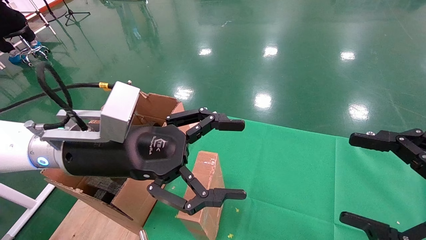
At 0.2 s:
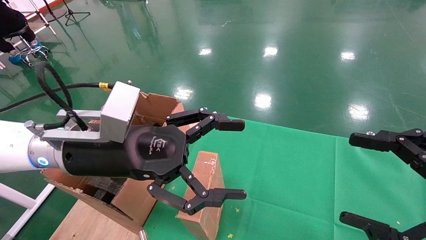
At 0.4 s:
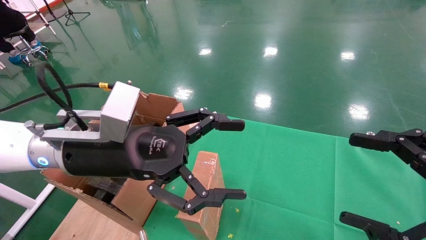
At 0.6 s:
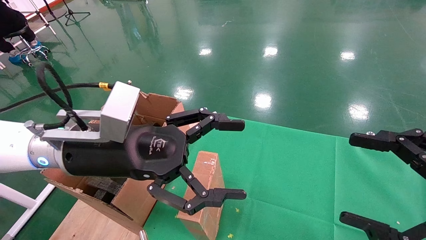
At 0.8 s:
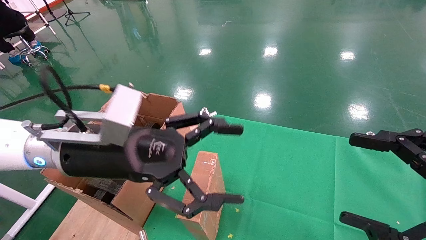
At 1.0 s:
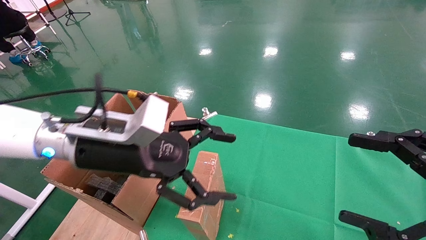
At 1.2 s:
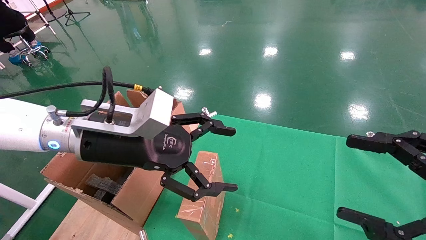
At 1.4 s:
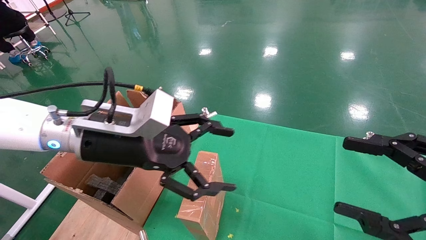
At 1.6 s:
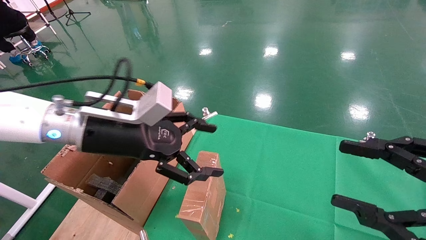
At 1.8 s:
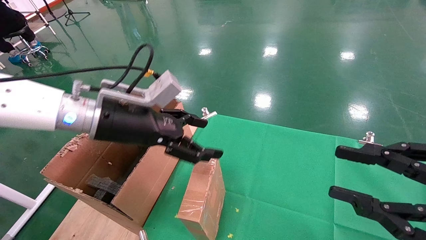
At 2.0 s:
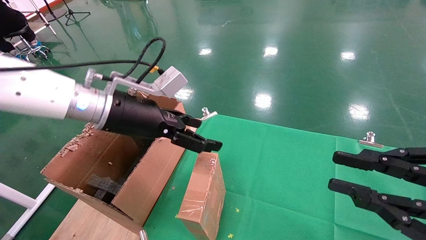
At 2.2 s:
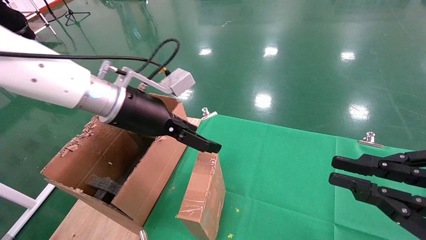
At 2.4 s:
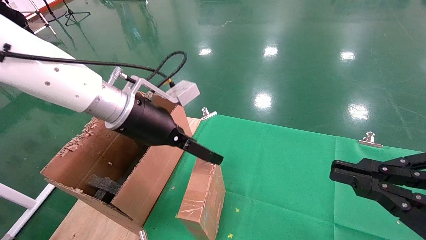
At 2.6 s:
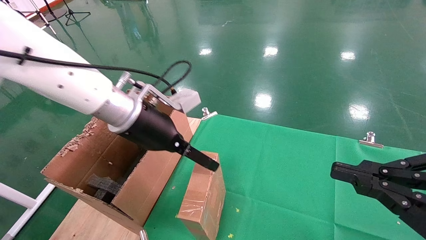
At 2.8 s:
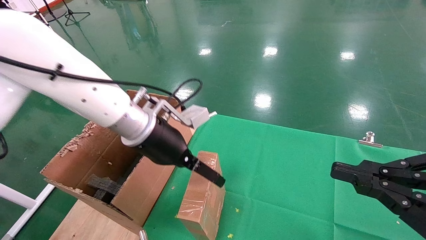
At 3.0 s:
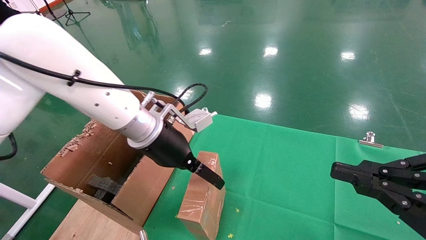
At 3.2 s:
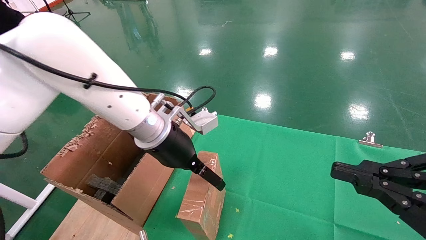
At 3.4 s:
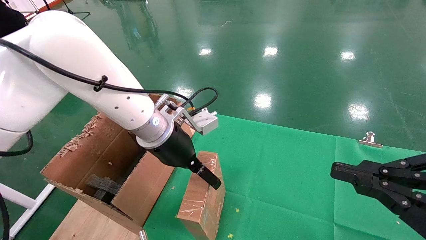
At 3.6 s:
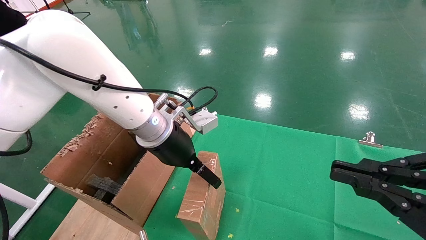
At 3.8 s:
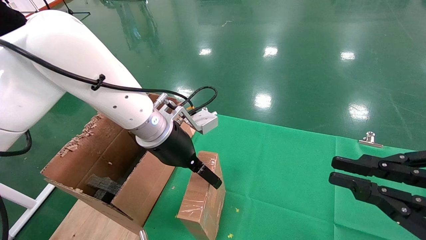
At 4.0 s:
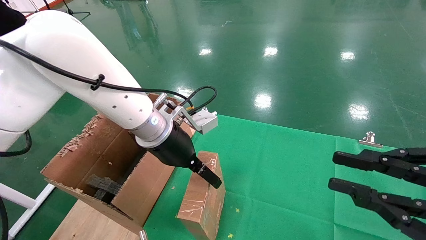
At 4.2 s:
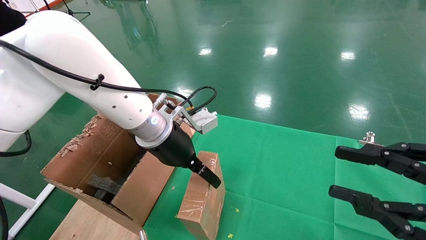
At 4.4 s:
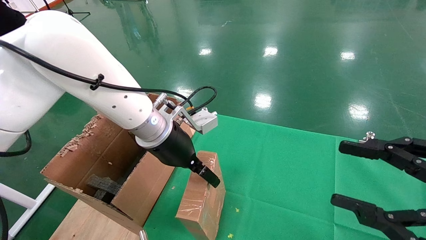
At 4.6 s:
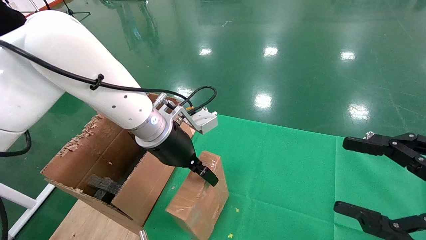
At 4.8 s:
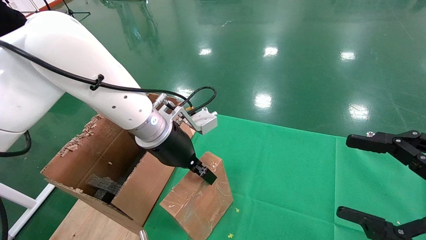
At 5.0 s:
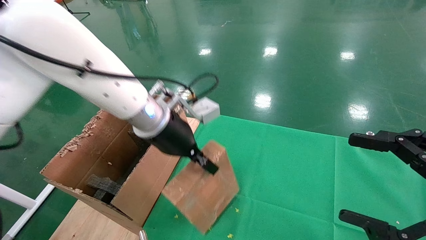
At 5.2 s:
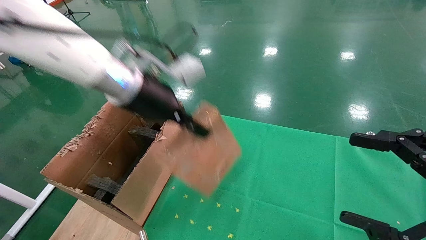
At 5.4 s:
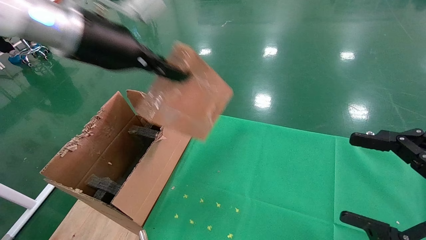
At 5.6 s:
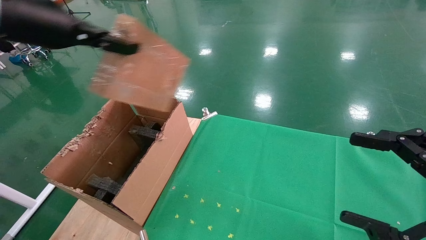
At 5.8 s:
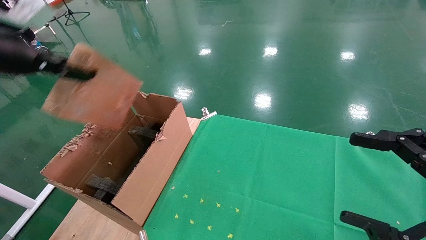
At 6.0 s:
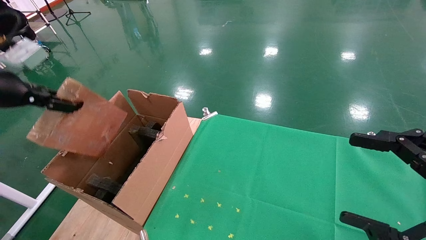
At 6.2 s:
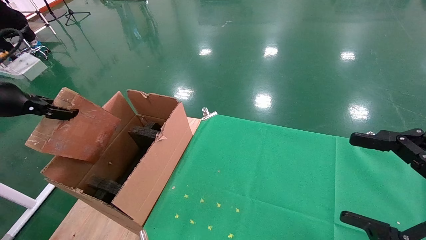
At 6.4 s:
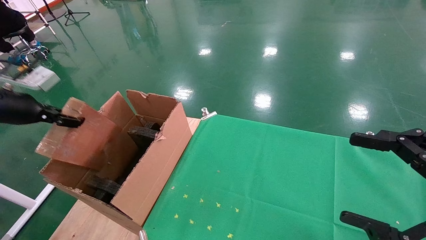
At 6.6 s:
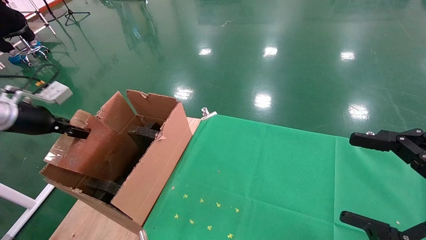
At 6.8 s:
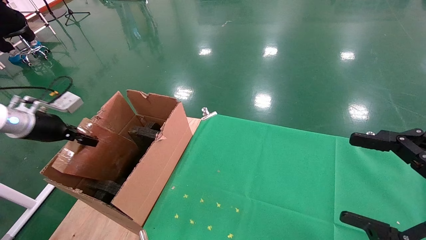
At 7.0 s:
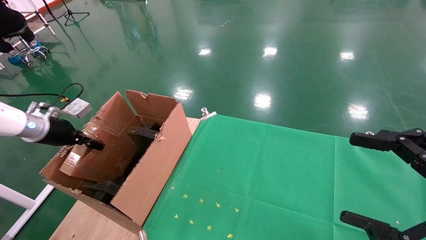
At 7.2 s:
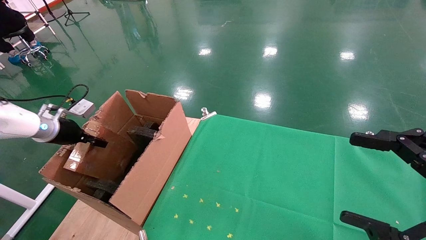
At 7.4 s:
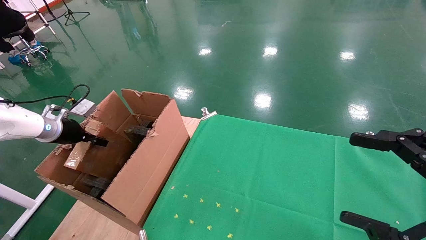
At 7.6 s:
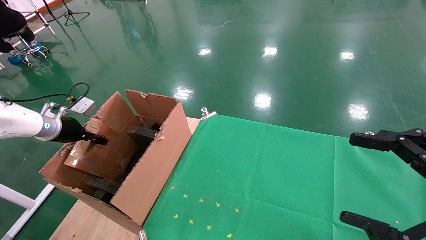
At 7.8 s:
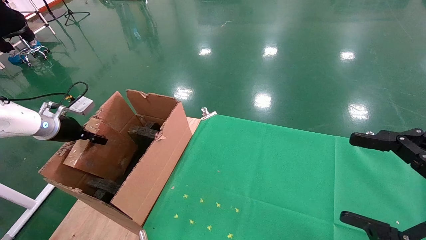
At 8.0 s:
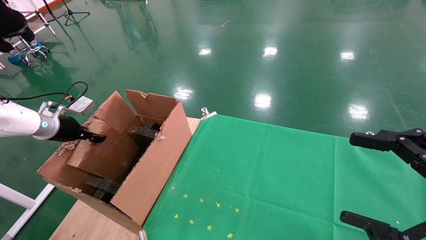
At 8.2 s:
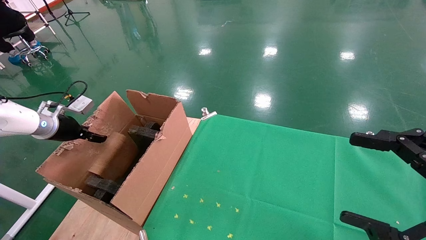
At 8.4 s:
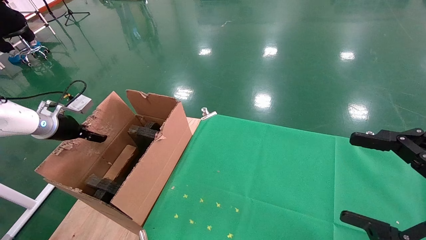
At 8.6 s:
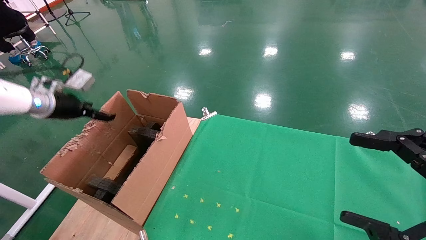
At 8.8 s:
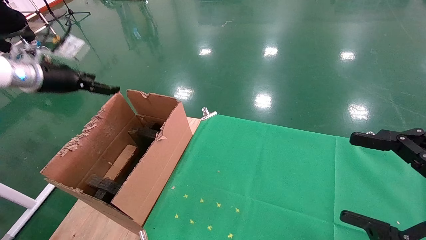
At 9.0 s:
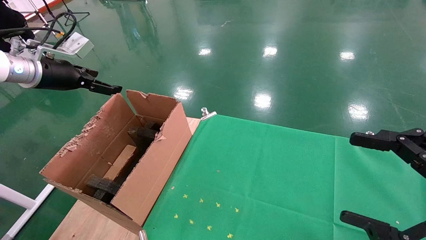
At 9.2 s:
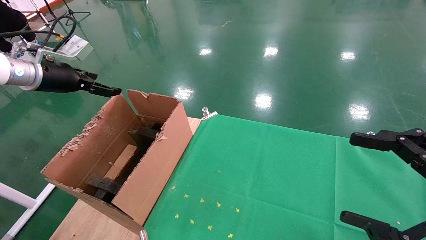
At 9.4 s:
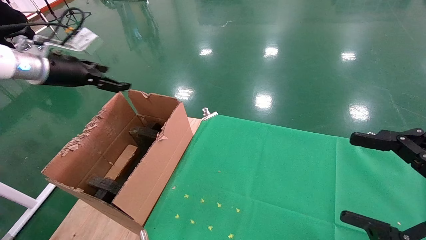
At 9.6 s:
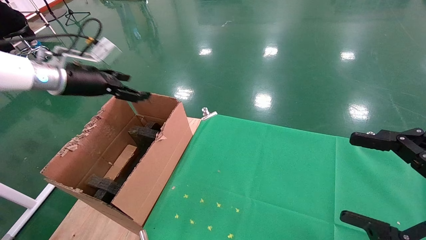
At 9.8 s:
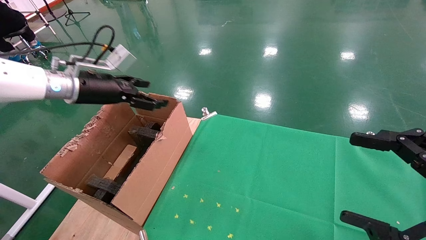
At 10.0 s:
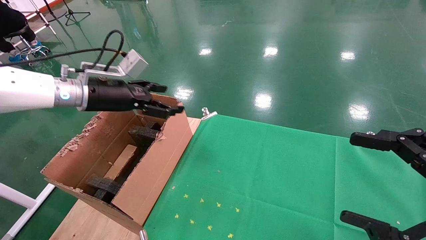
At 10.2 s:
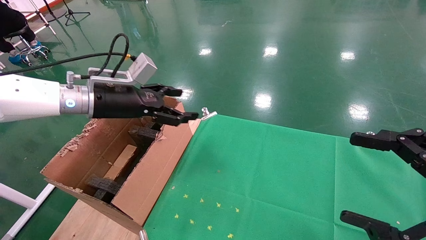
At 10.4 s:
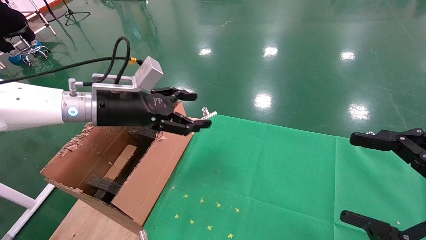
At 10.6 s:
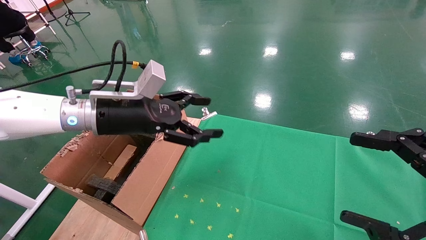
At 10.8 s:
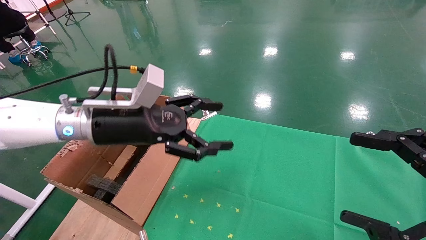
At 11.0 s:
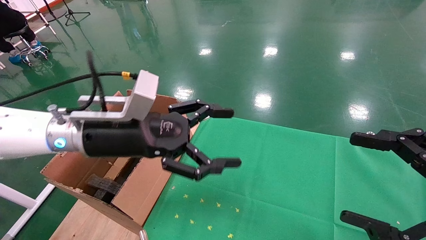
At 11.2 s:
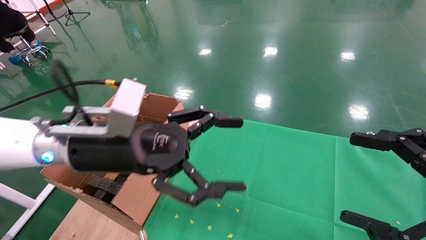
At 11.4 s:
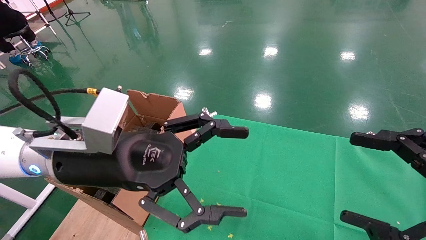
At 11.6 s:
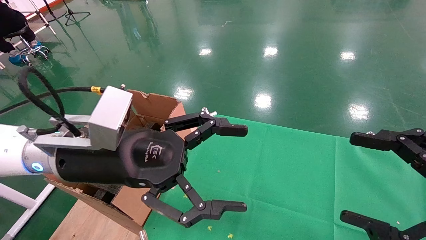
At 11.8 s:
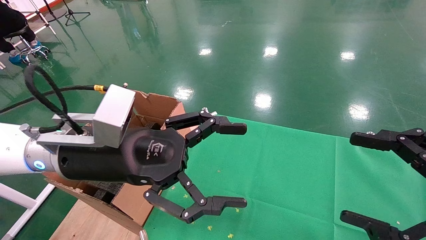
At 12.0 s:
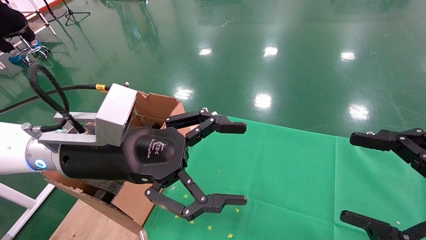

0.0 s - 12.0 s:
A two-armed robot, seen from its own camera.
Task of the whole recording: using a robotic arm to pick up a cardboard box and palace it the carton.
Step, 1.0 s - 4.6 s: Pick up the mouse and the power cord paper box.
Step, 4.8 s - 8.4 s: Place the mouse and the power cord paper box into the container.
1.6 s - 3.0 s: The right gripper closes up. The left gripper is displaced to the right and forward by about 10 cm.
3.0 s - 4.4 s: The right gripper opens.
4.4 s - 6.0 s: The right gripper opens; the left gripper moves to the left, about 30 cm, and closes its fingers.
6.0 s - 7.6 s: The left gripper travels downward and forward by about 20 cm.
7.6 s - 9.0 s: The left gripper goes some 15 cm upward, and opens its fingers.
9.0 s - 10.4 s: The left gripper goes approximately 20 cm to the right.
10.4 s - 12.0 s: The left gripper is displaced backward and to the right by some 15 cm.

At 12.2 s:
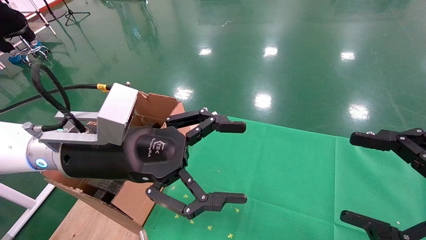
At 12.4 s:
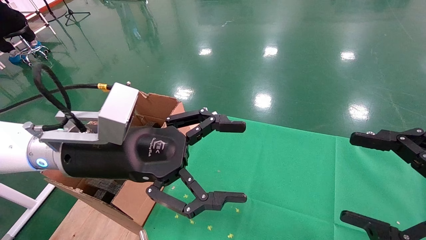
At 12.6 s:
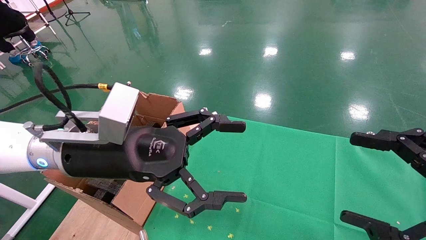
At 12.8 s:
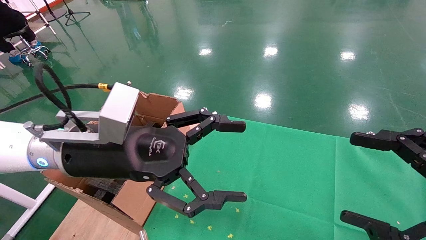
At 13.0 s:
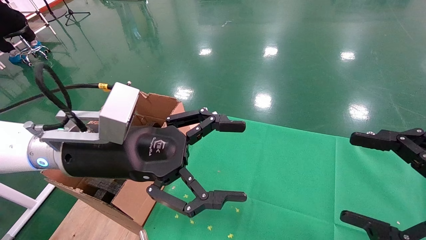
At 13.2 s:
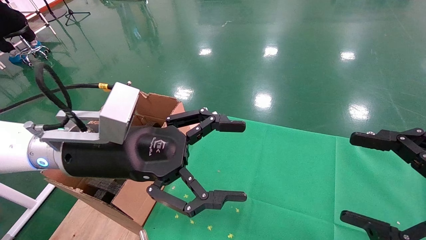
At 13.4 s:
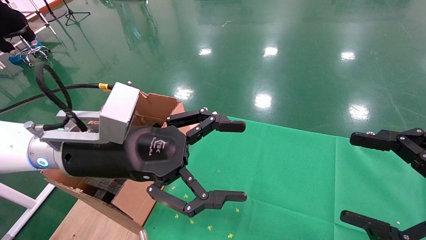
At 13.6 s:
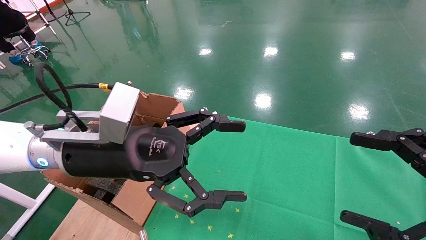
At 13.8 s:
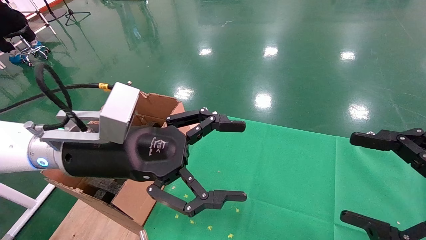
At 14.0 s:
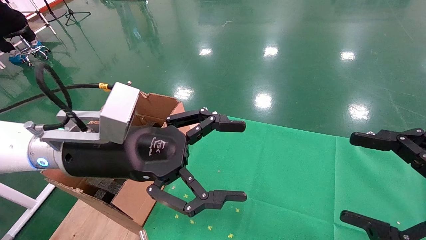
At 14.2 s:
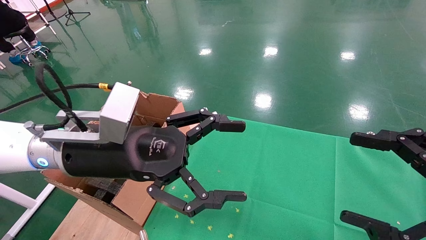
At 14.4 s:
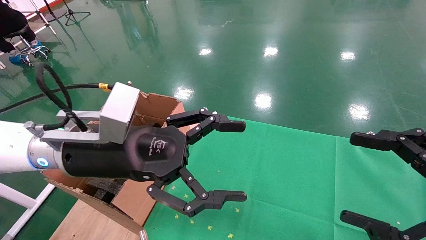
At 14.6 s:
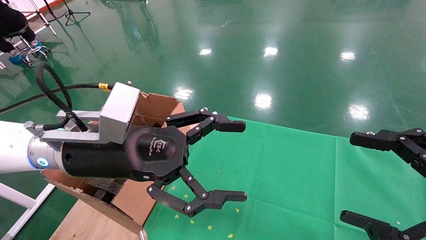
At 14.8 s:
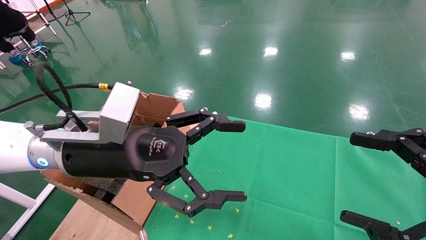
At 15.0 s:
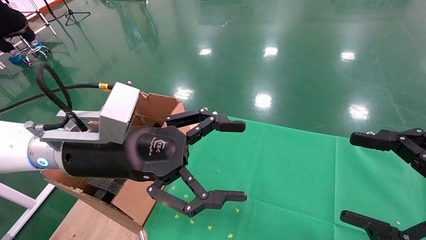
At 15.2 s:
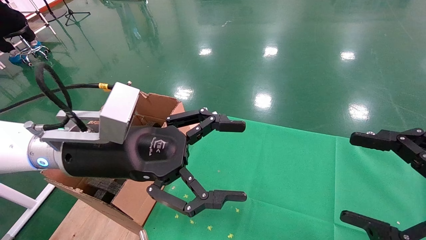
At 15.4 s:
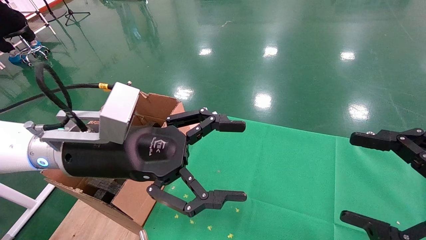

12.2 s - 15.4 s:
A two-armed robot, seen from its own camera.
Task of the whole recording: using a robotic arm to pick up a cardboard box and palace it the carton.
12.2 s - 15.4 s: Neither gripper changes place.
